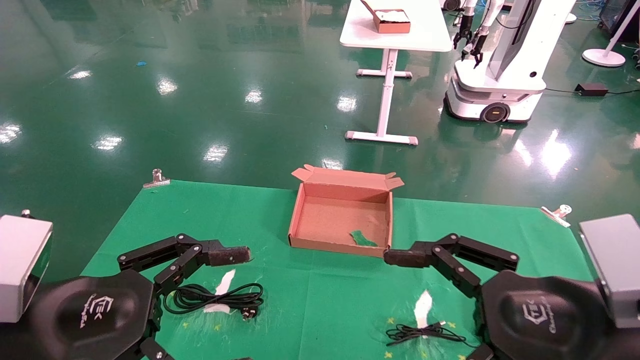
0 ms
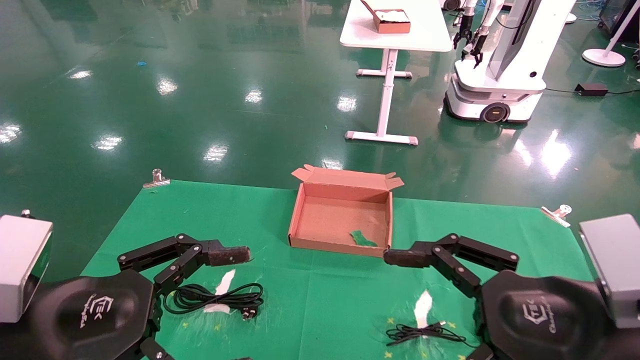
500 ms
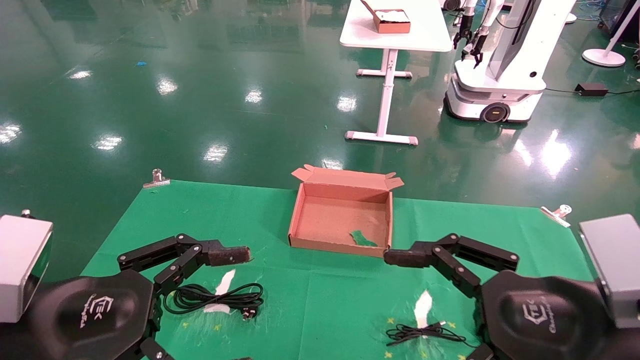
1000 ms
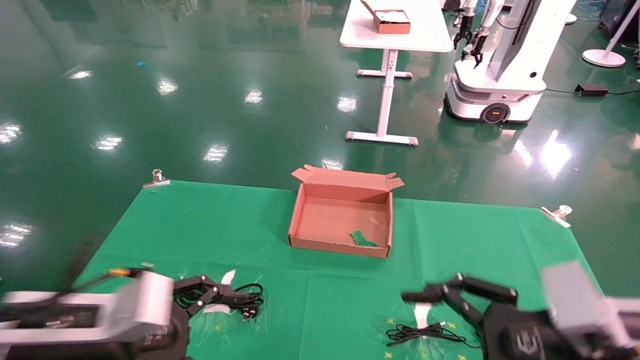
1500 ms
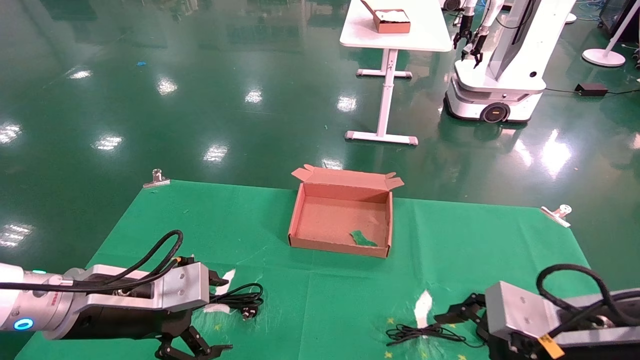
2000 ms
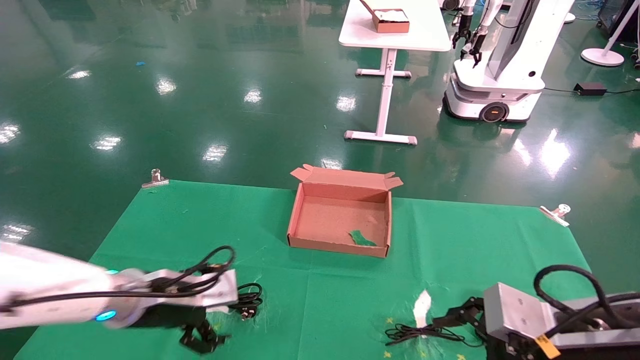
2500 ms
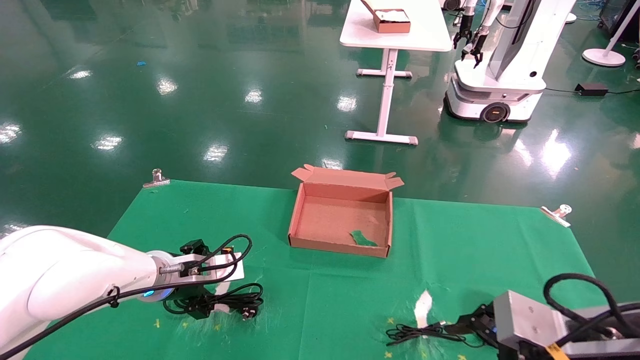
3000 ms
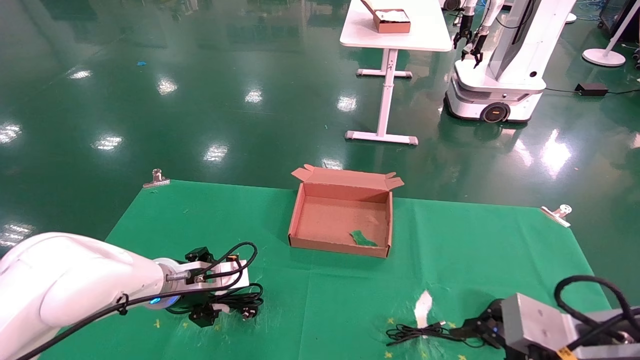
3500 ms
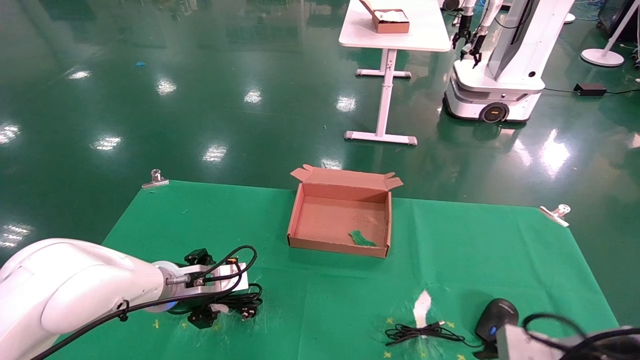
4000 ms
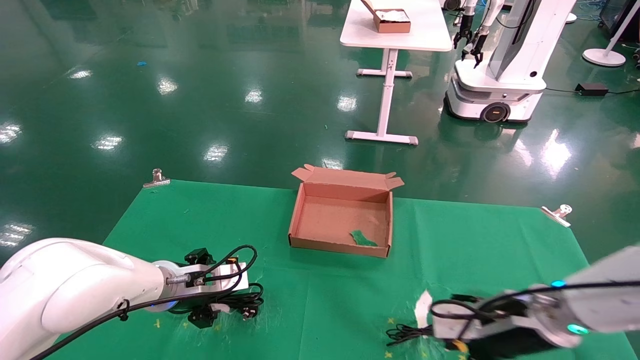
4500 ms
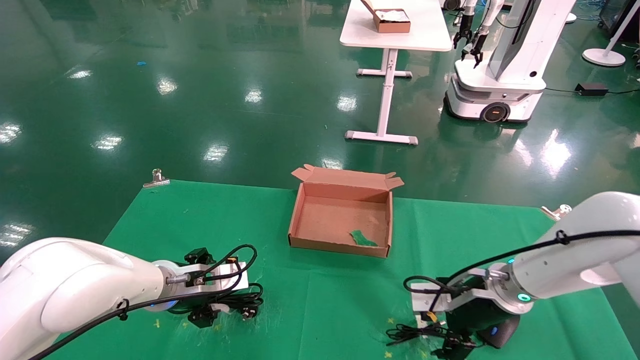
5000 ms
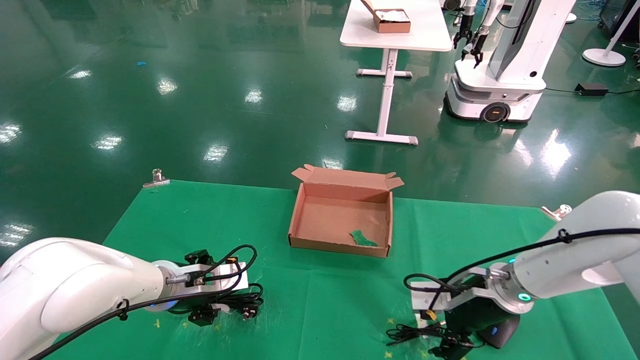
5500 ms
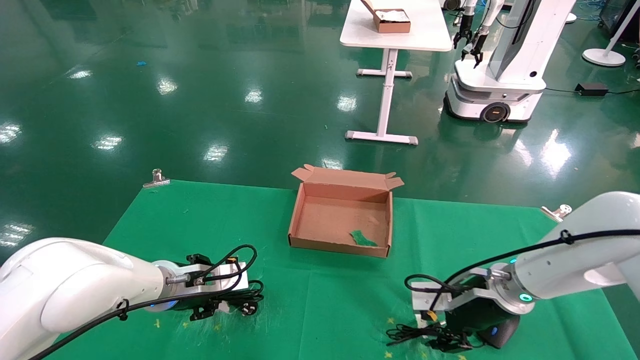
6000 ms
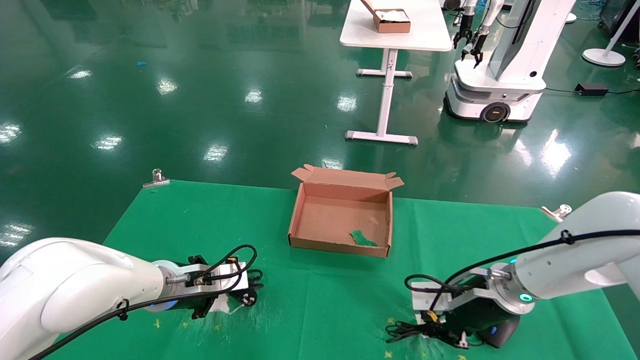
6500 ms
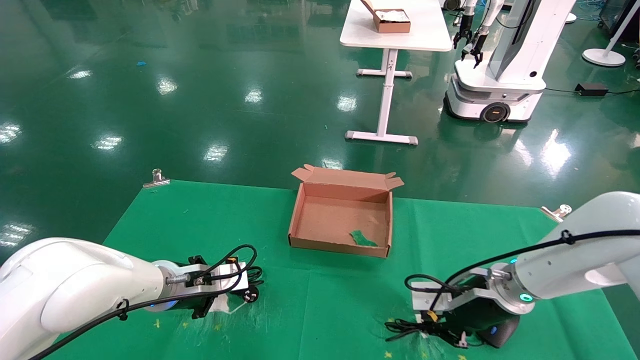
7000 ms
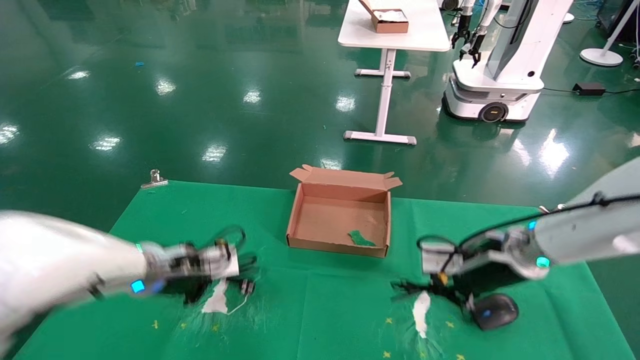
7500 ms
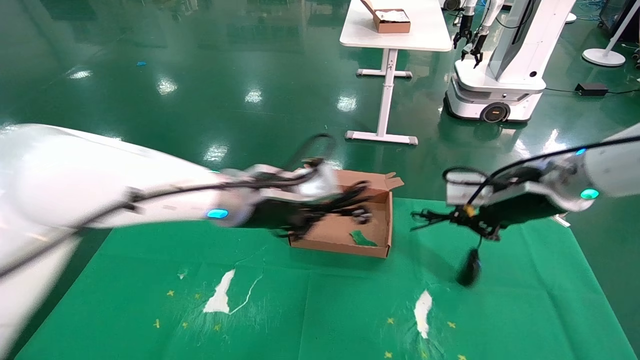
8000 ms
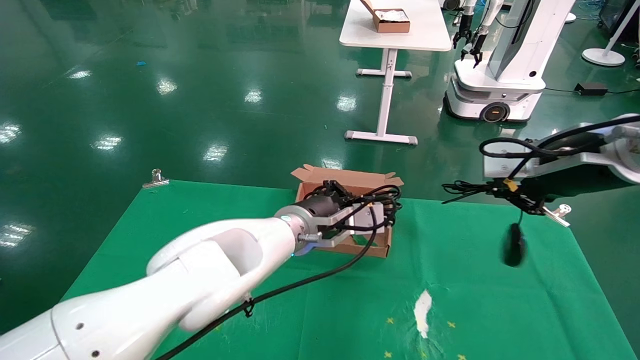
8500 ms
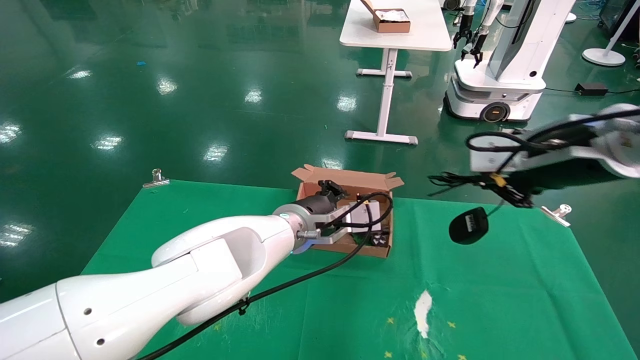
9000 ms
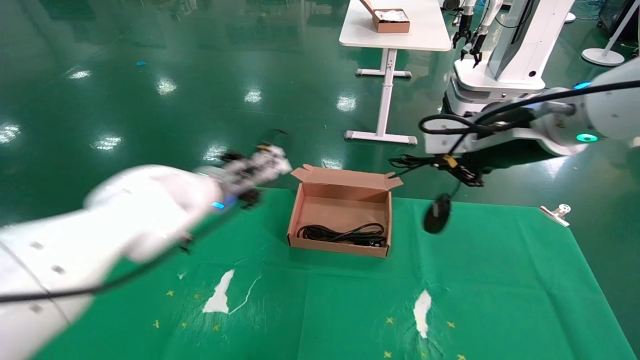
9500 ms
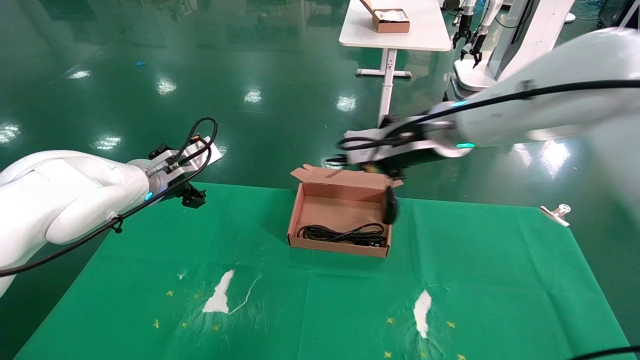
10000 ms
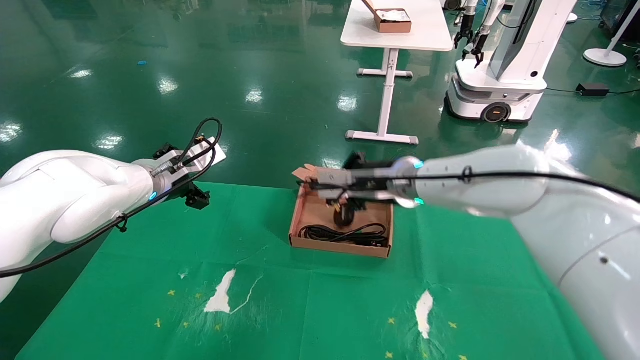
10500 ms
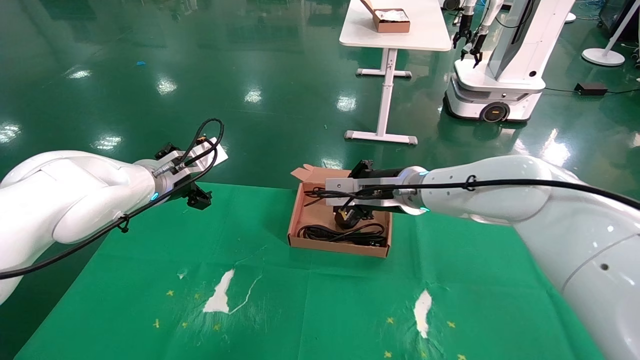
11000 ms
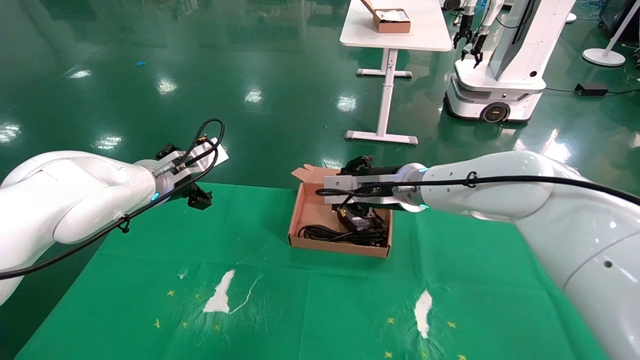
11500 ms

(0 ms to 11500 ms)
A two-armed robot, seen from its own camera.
Step, 1500 ms - 8000 ms: Grab and lift both the mouse and power cord from the accessory packaging area at the same time.
0 ms - 2000 ms: The left gripper shifts some 10 cm forward. Meanwhile the right gripper shifts by about 5 cm.
2000 ms - 4000 ms: The left gripper is displaced forward and downward by about 15 cm; the right gripper changes place by about 5 cm.
4000 ms - 6000 ms: The right gripper moves forward, roughly 15 cm, and closes its fingers; the left gripper closes.
6000 ms - 7500 ms: The right gripper shifts approximately 5 cm upward, and closes its fingers. Meanwhile the left gripper closes.
7500 ms - 9500 ms: The left gripper goes approximately 10 cm upward and forward, travels to the right and back again, roughly 20 cm each way, and opens its fingers. Meanwhile the right gripper heads upward, covering about 15 cm.
9500 ms - 11500 ms: The left gripper shifts roughly 10 cm to the left, and opens its fingers; the right gripper moves forward, downward and to the left, roughly 20 cm.

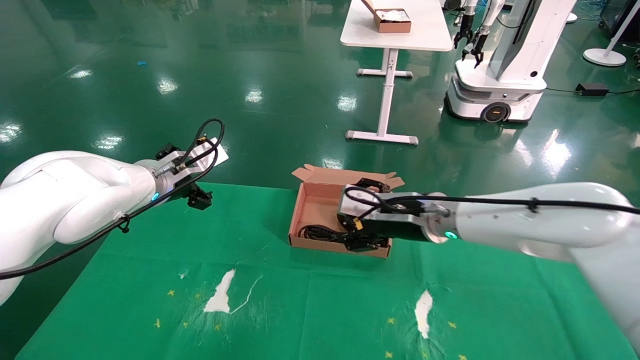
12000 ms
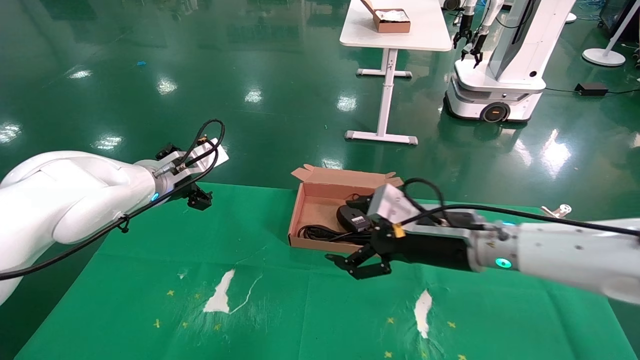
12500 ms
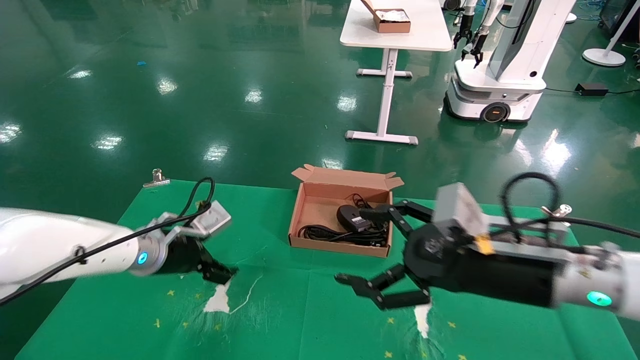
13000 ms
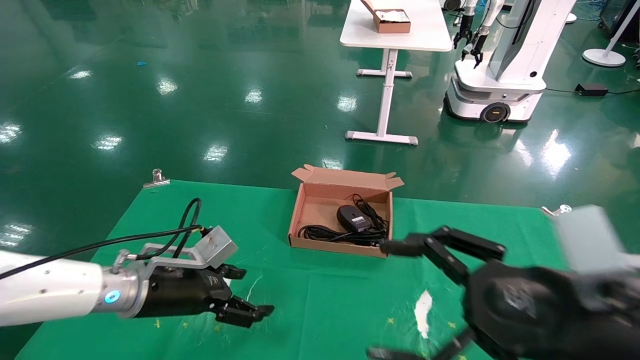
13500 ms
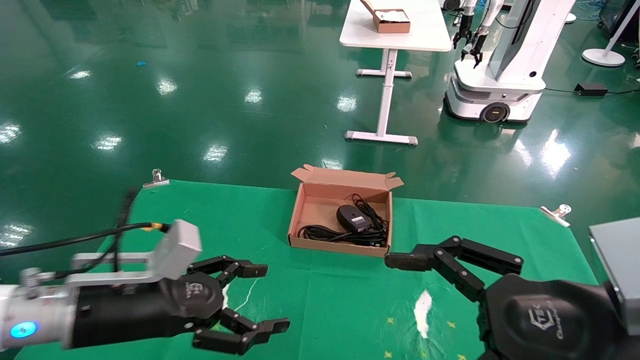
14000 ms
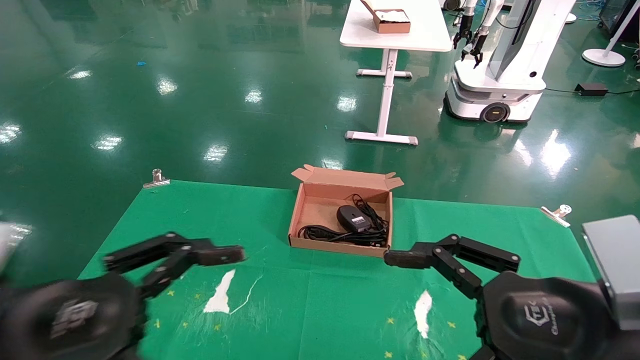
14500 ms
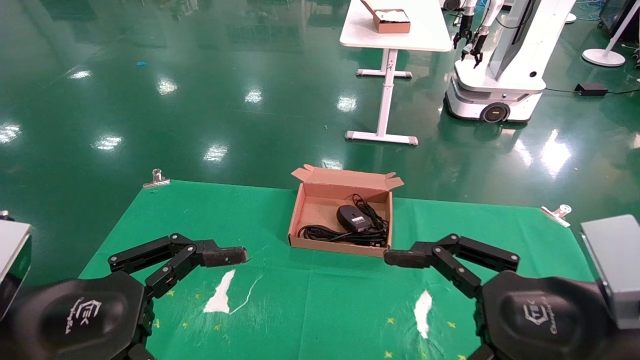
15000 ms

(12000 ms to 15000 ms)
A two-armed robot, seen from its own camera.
12000 ms - 13500 ms: The right gripper shifts some 25 cm backward and to the right, while the left gripper is displaced downward and backward by about 15 cm.
13500 ms - 15000 ms: The left gripper goes about 20 cm backward and upward.

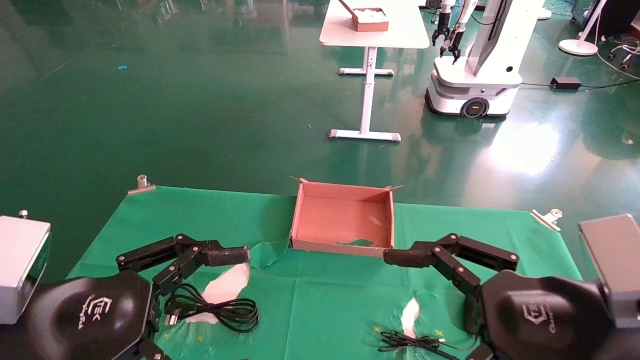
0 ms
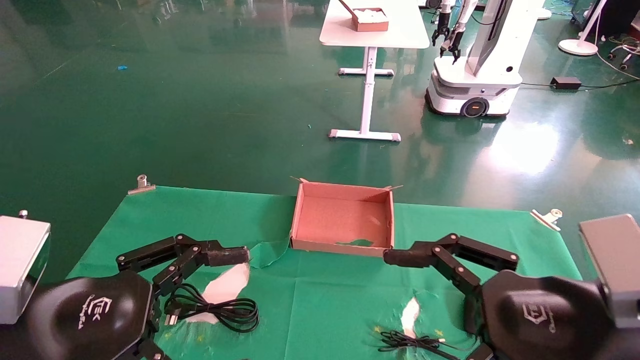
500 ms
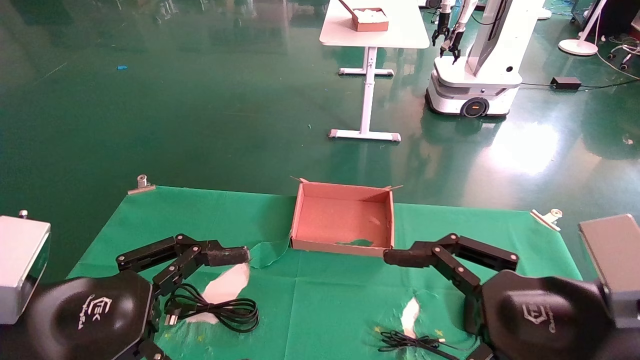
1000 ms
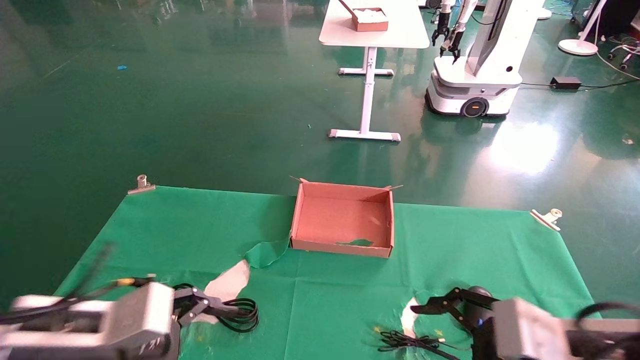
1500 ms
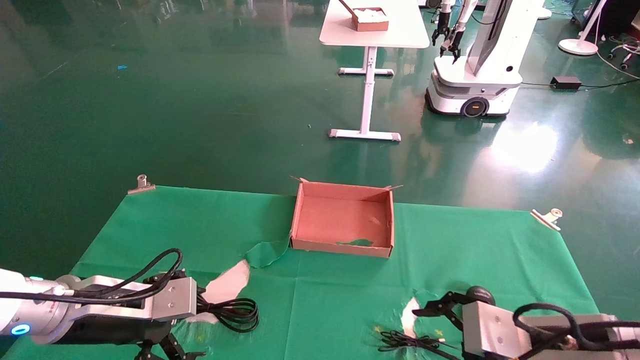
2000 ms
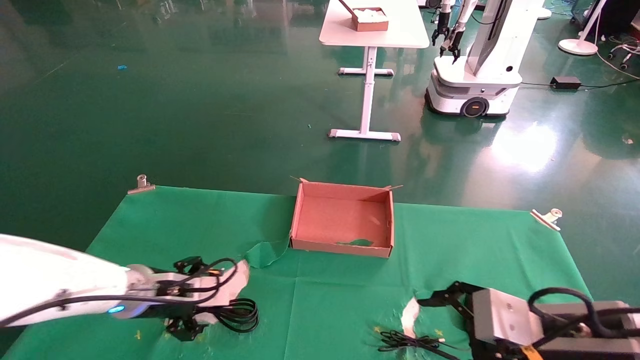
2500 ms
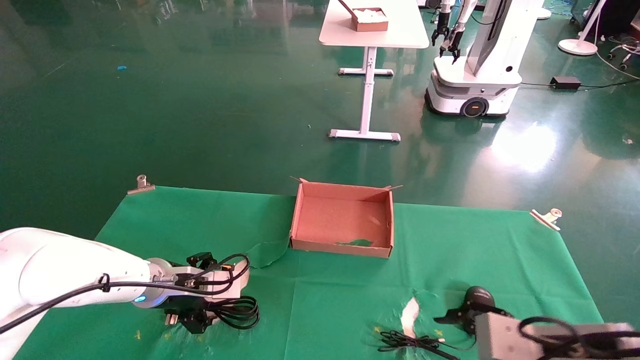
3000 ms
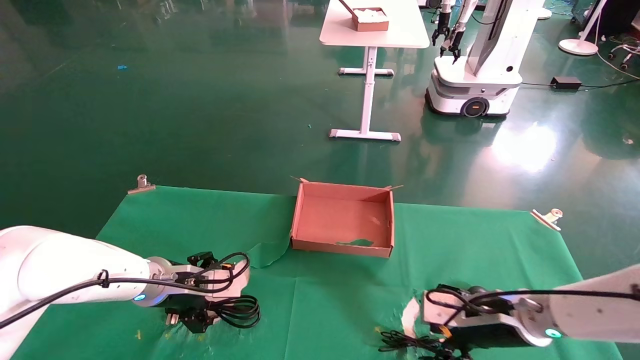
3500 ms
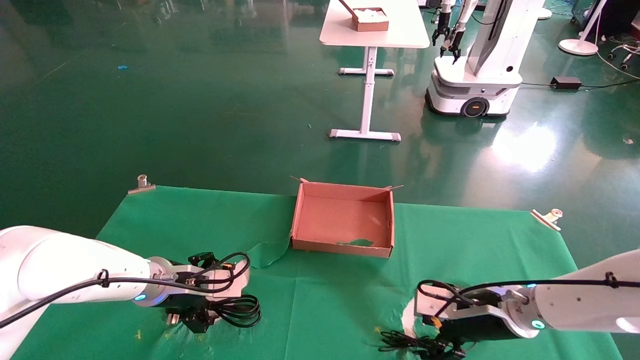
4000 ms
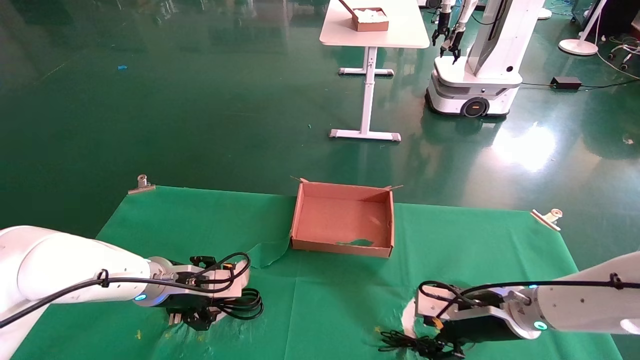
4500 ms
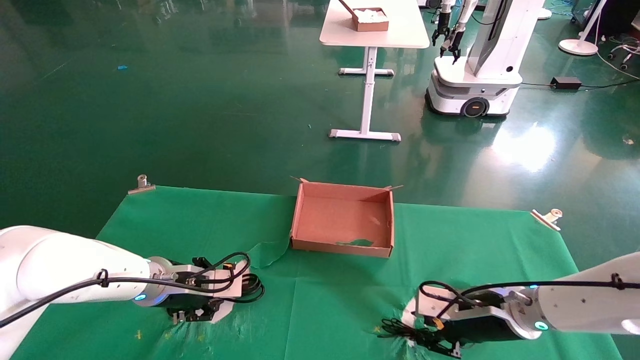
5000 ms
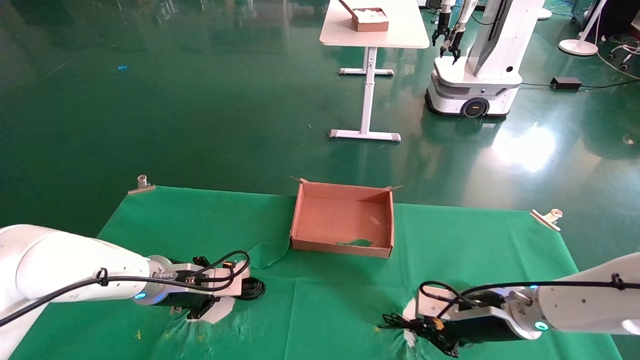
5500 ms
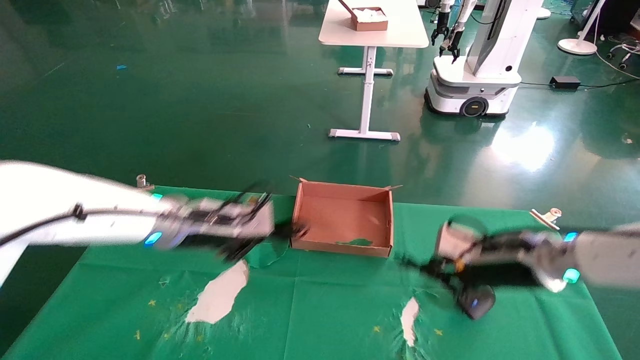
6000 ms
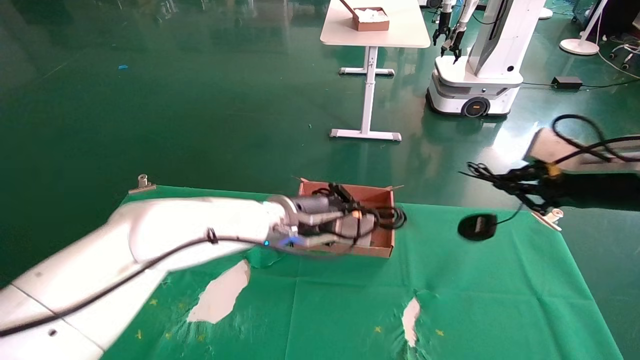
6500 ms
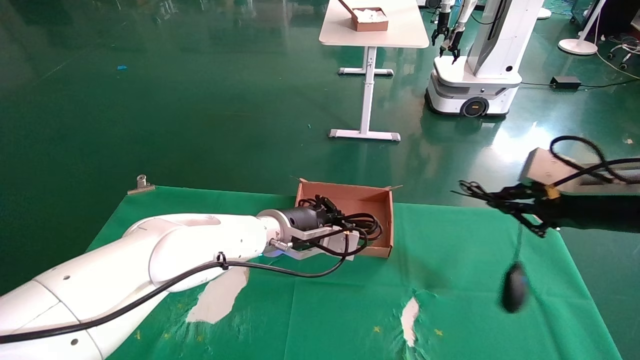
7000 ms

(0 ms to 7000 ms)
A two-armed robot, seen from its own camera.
Step, 2000 ms - 5500 ms: Grab and lift both the mouse and power cord from the accessory packaging area at the same time.
0 ms - 2000 ms: The left gripper goes approximately 15 cm forward and downward; the right gripper is displaced downward and forward by about 10 cm.
2000 ms - 3500 ms: Both grippers move forward, roughly 10 cm.
3500 ms - 5000 ms: The right gripper closes up; the left gripper closes its fingers.
5000 ms - 7000 ms: The right gripper moves upward and to the right, approximately 20 cm, and closes, while the left gripper goes about 20 cm to the right.
